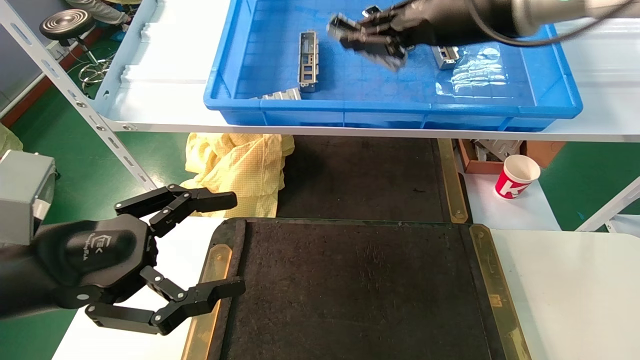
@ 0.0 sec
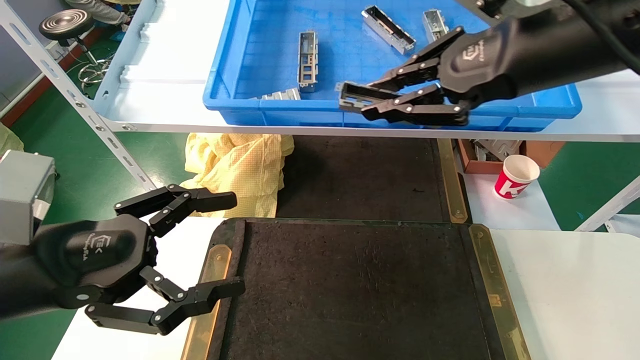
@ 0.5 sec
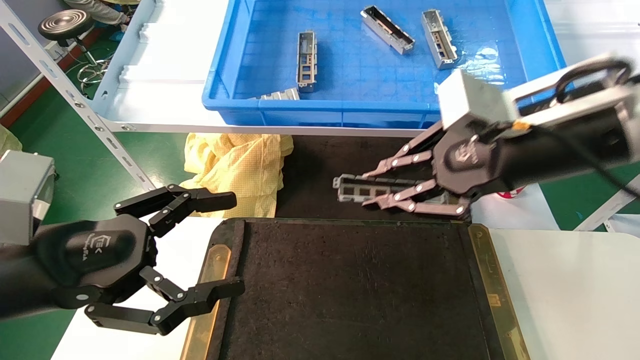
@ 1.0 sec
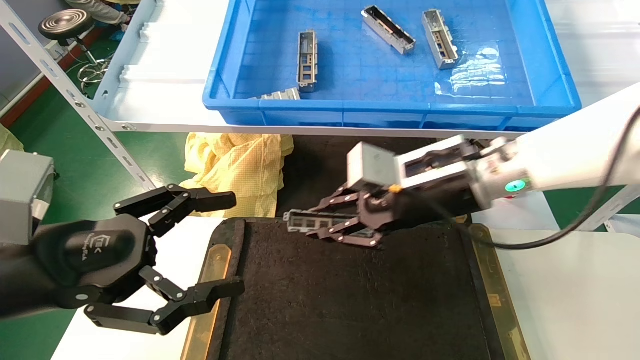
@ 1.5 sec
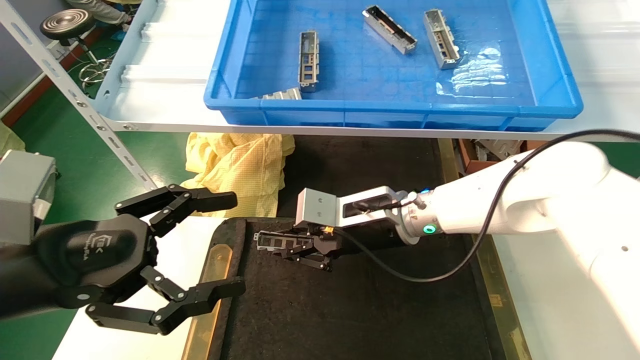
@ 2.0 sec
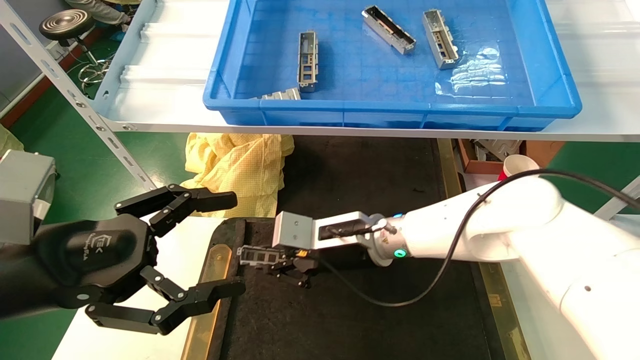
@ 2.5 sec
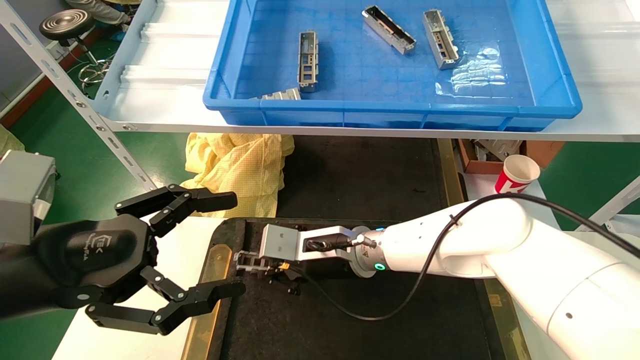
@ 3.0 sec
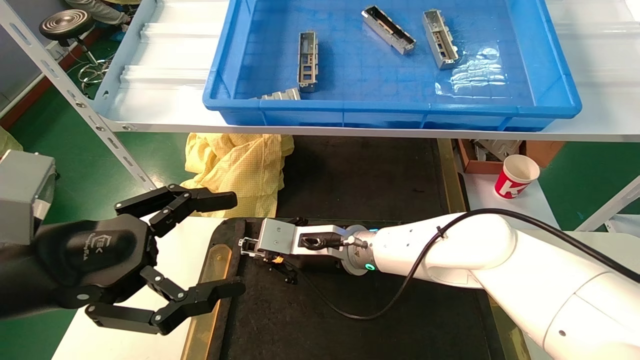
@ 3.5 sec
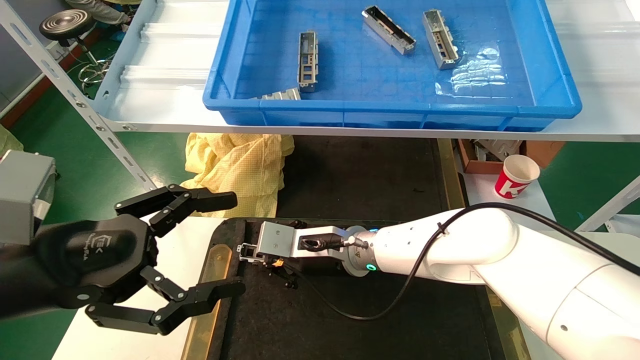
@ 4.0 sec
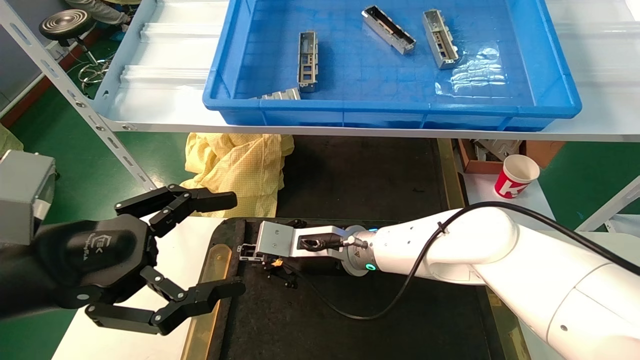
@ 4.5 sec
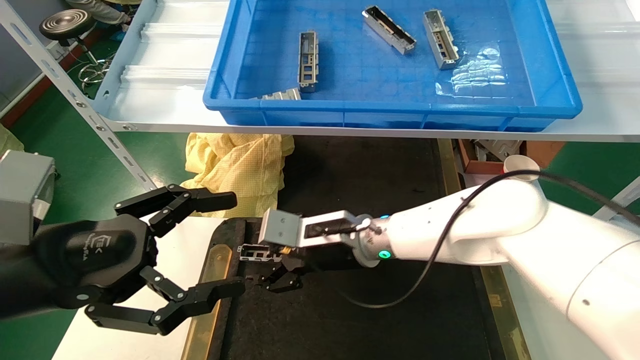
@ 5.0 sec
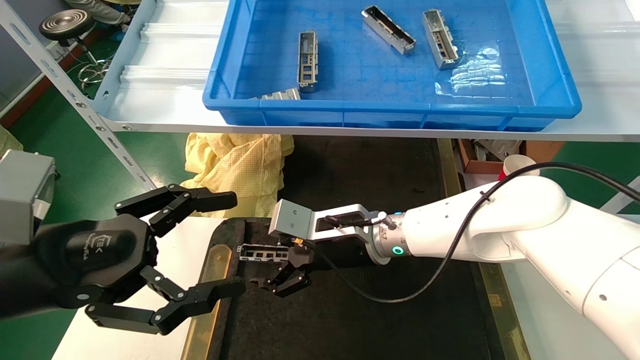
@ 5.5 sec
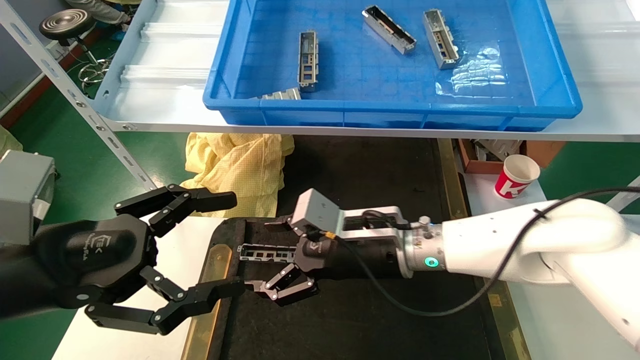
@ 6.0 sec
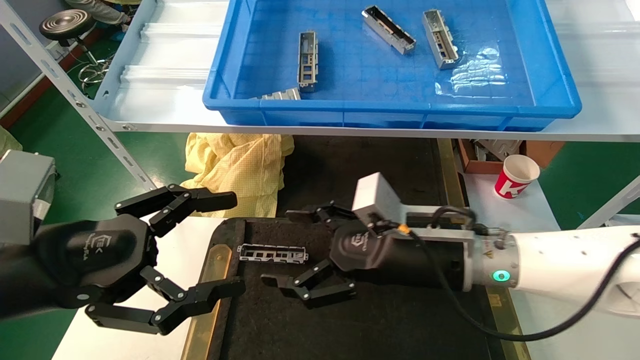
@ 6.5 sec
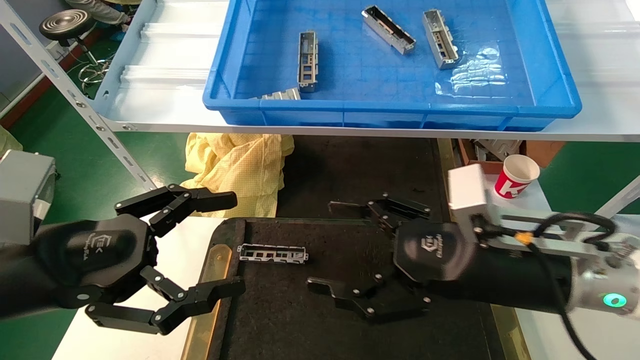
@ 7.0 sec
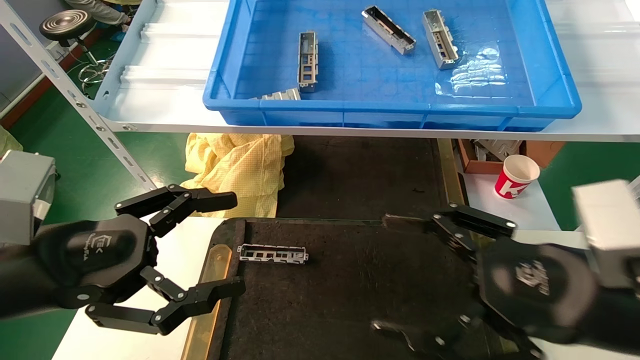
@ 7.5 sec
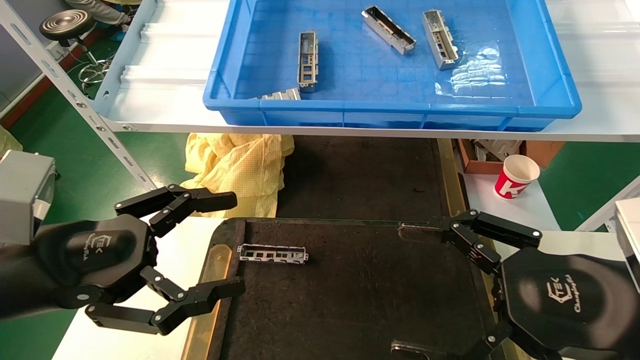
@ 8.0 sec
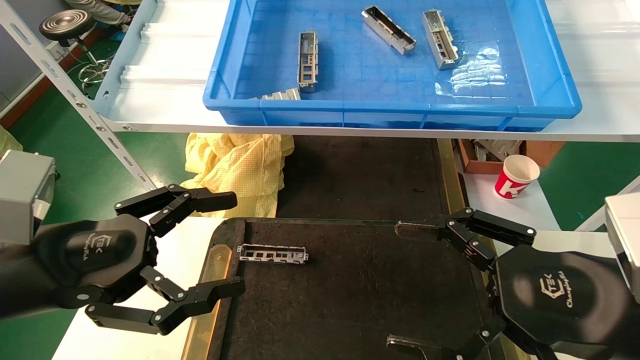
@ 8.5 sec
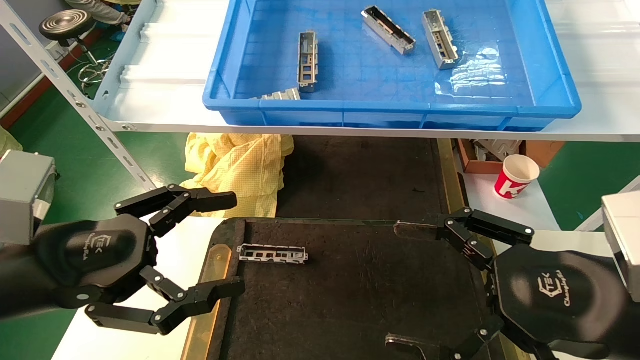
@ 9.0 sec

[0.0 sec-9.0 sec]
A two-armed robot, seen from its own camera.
Task of the whole recording: grasp the part and place them on the black container.
Step, 0.5 sec to 4.5 sec: Place the front USB bracket into the box.
0.0 sec to 2.0 sec: The right gripper is displaced downward by about 25 cm.
2.0 sec to 4.5 sec: The right gripper moves to the left and downward, roughly 10 cm.
4.5 sec to 7.0 sec: The right gripper shifts about 25 cm to the right and backward, and opens.
7.0 sec to 9.0 sec: The right gripper moves backward and to the right, about 10 cm.
